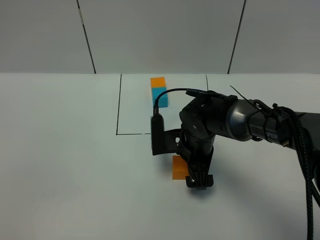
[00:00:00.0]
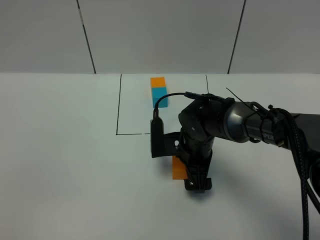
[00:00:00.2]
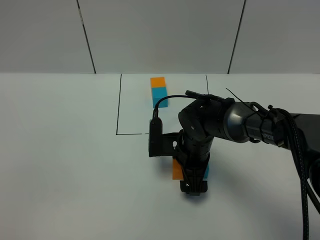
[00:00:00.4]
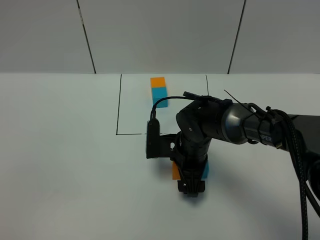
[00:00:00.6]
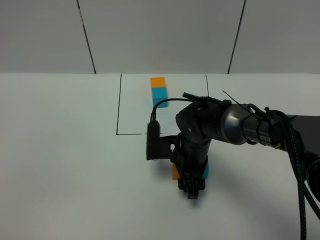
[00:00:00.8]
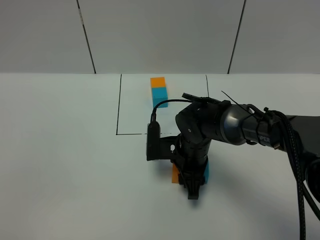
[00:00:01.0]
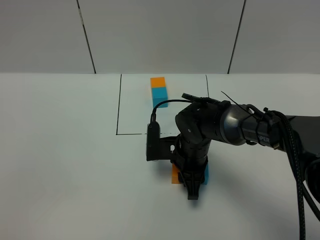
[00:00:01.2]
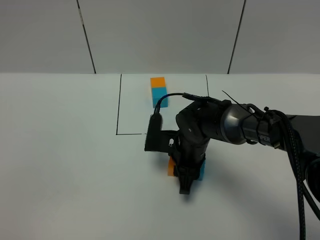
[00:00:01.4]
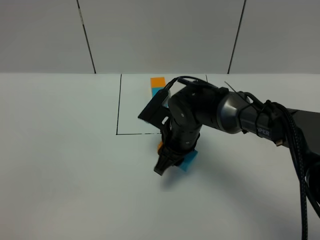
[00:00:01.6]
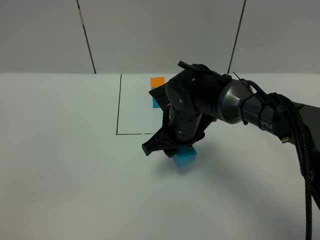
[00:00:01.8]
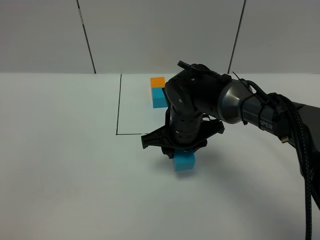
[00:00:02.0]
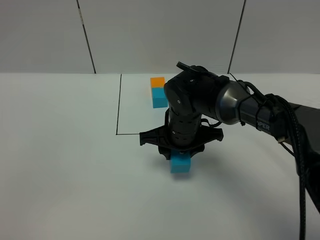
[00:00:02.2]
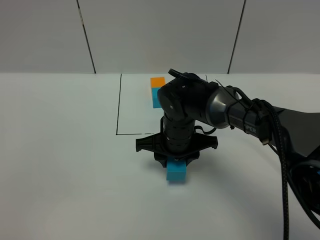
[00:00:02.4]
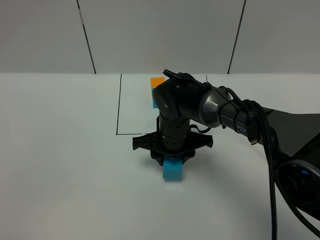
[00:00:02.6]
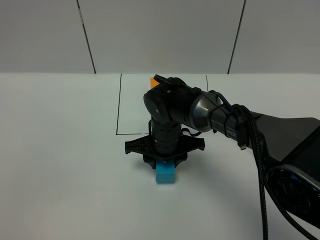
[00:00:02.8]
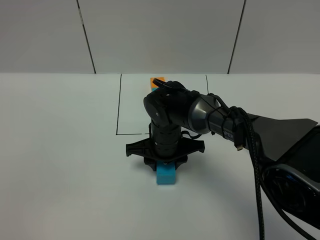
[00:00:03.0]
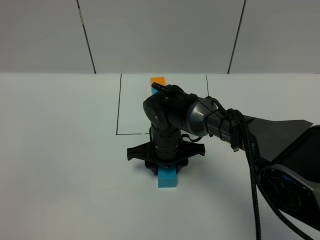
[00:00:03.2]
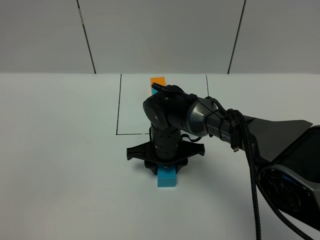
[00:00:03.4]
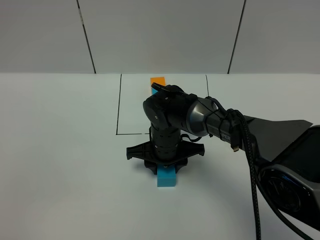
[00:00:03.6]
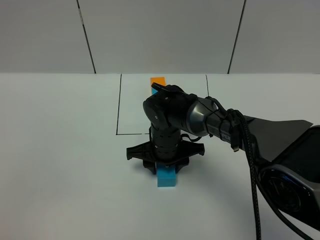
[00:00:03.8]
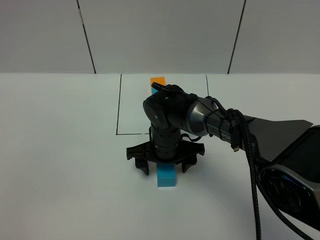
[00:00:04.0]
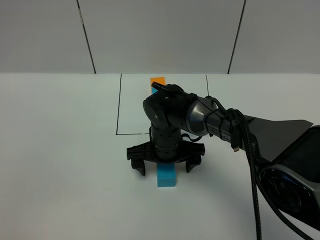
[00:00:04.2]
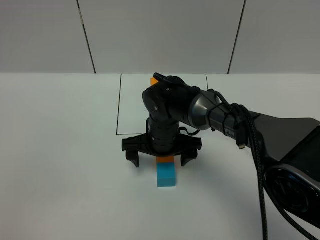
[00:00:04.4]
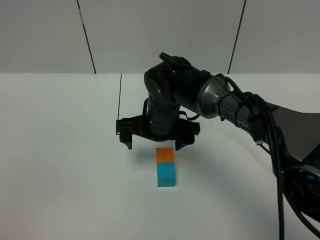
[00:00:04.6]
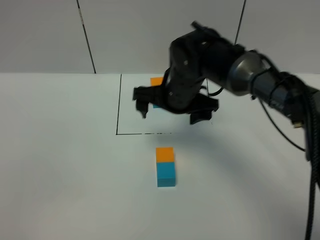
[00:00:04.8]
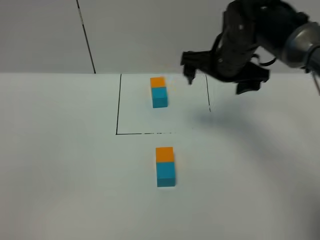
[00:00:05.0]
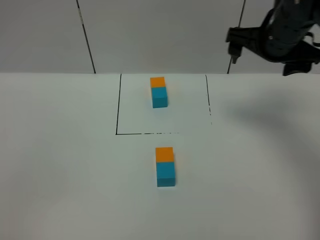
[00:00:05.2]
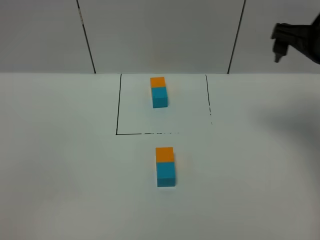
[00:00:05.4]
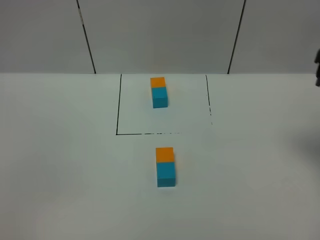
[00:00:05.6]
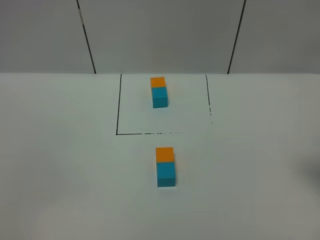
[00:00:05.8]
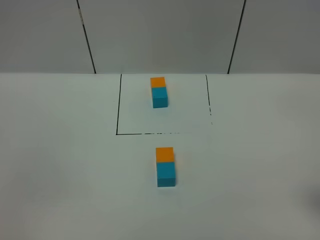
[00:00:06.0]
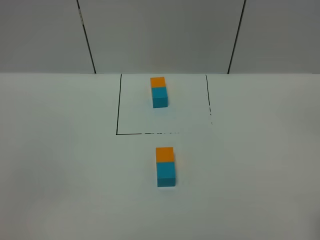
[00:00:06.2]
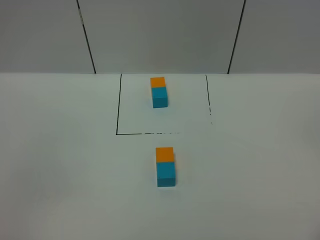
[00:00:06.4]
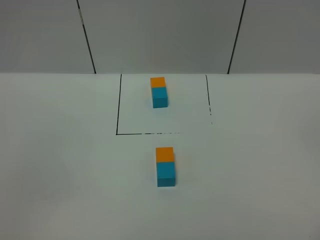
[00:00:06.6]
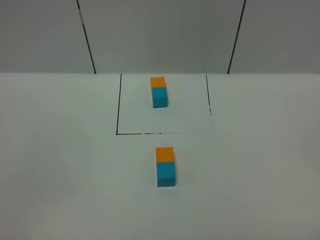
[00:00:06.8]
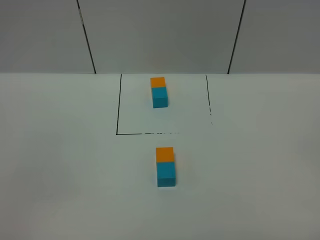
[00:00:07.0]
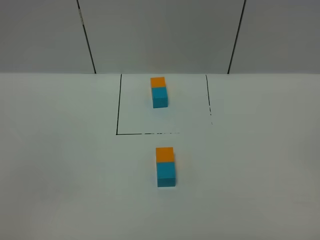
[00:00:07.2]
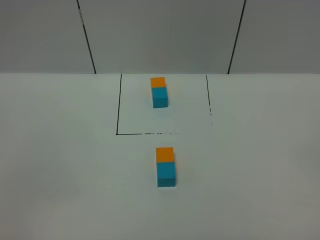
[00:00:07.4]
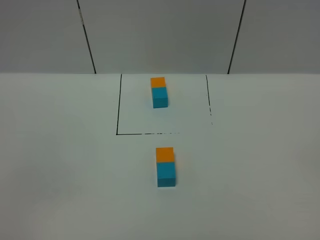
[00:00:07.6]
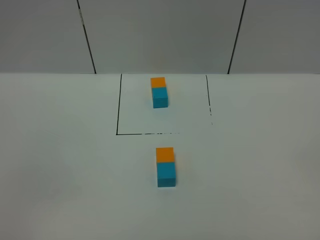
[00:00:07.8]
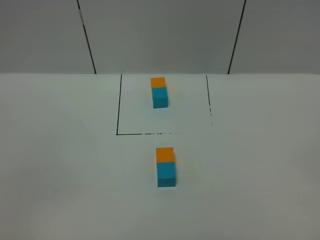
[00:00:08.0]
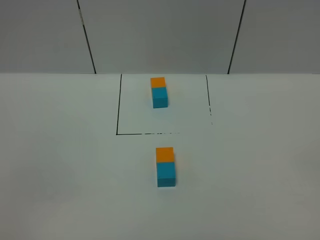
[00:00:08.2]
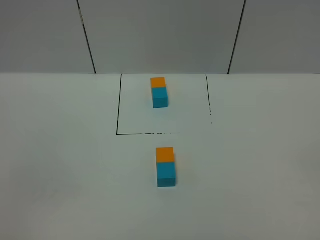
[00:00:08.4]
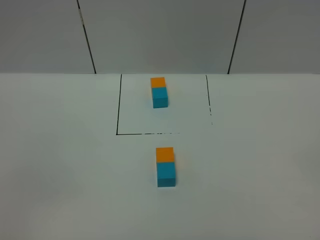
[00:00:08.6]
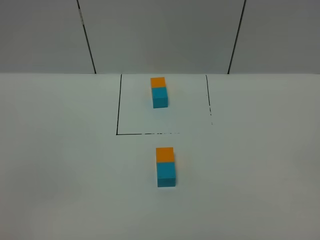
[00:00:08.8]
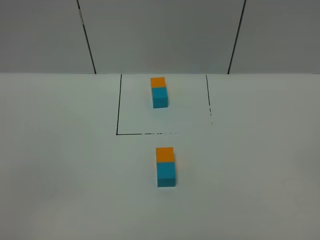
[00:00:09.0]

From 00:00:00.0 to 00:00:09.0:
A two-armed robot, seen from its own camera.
Task of the whole recording: According to the building block template in front, assemble the scattered blocks together.
Step, from 00:00:00.0 to 00:00:04.2: Adjust the pose of the building blocks.
From 00:00:00.0 to 00:00:01.6: The right gripper closes.
From 00:00:03.0 to 00:00:04.4: The right gripper opens.
From 00:00:04.4 to 00:00:06.0: The right gripper is displaced to the right, backward and upward by roughly 40 cm.
From 00:00:07.6 to 00:00:09.0: Both grippers stay about where they are.
